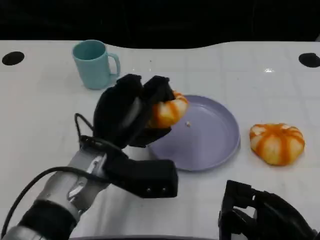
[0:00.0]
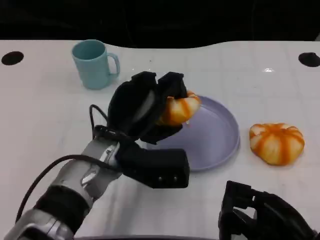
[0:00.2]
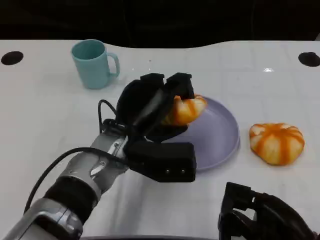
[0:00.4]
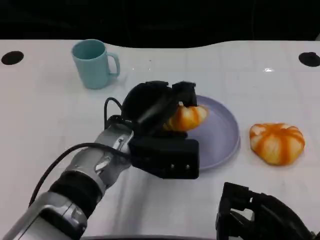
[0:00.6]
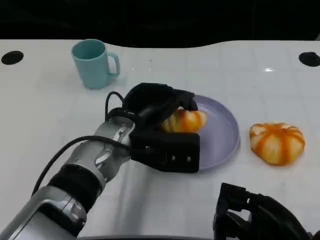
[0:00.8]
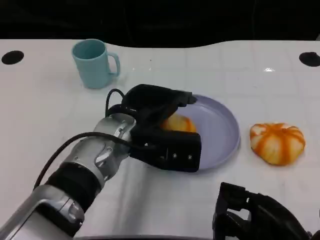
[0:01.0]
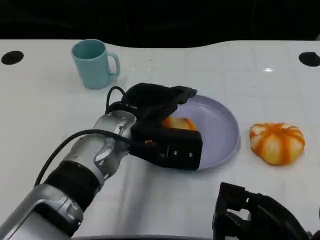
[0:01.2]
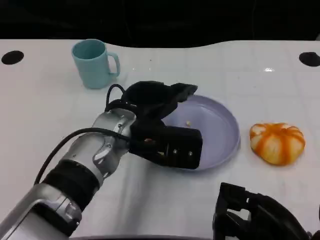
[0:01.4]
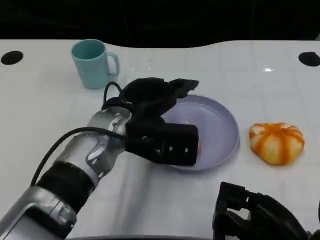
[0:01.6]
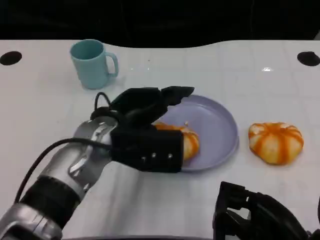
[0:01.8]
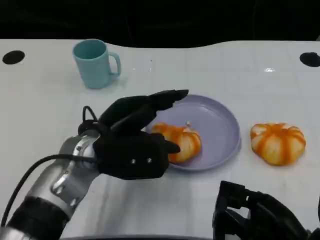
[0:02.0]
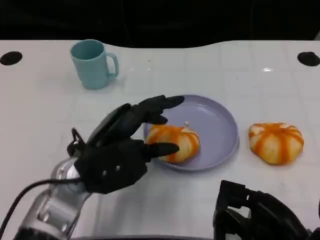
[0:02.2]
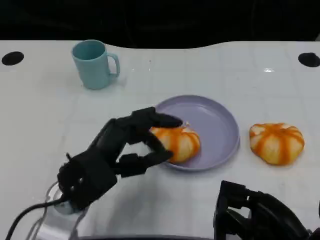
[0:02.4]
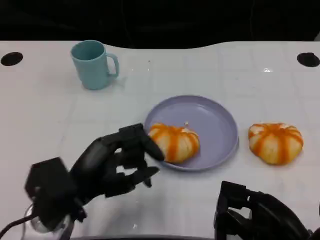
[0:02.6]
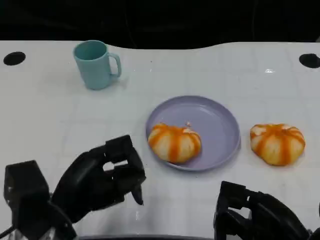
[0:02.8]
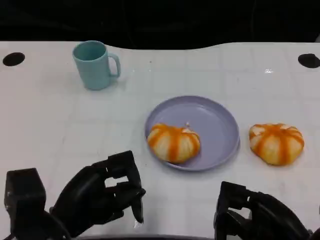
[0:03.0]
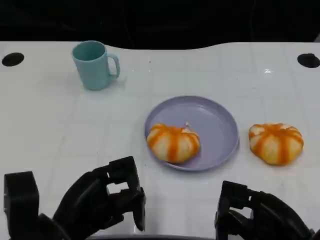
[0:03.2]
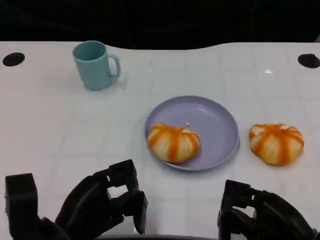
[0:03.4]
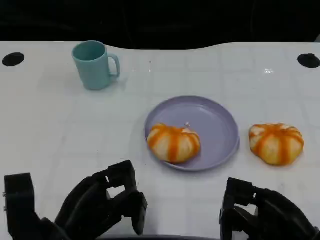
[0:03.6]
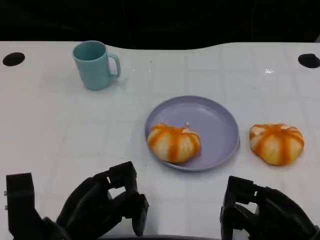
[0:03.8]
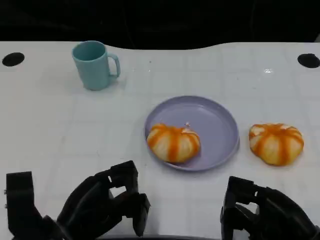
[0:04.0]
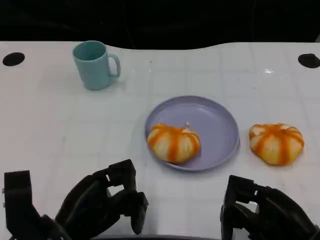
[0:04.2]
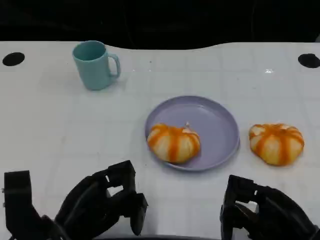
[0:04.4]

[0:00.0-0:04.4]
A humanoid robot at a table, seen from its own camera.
Task of the whole recording: Grasp the bread from the table and place it into the plate.
0:00.0 to 0:01.4: The left hand ends up some 5 cm from where it was.
0:01.4 to 0:03.0: The left hand heads backward, to the left and downward, covering some 20 cm.
0:03.0 to 0:04.4: There are only small adjustments of the hands.

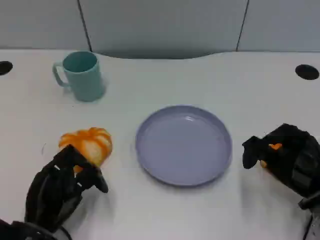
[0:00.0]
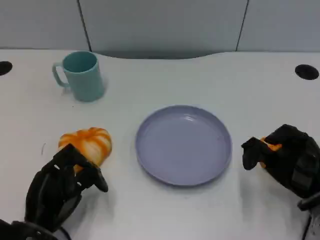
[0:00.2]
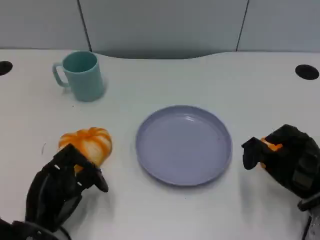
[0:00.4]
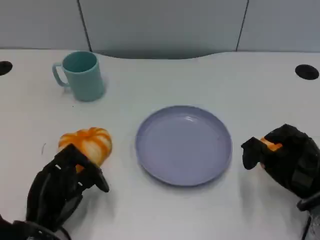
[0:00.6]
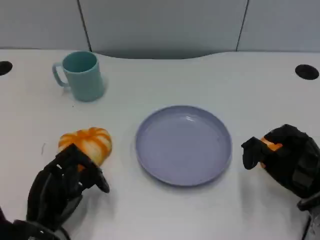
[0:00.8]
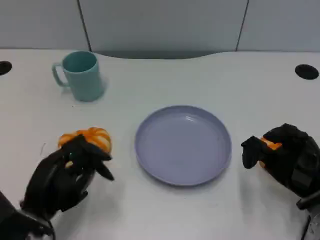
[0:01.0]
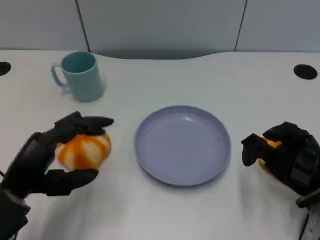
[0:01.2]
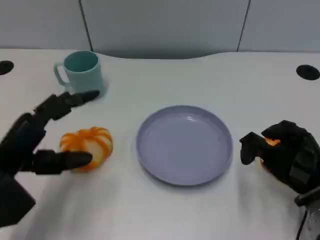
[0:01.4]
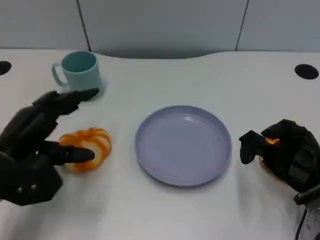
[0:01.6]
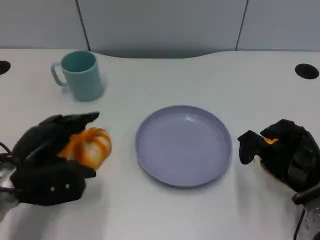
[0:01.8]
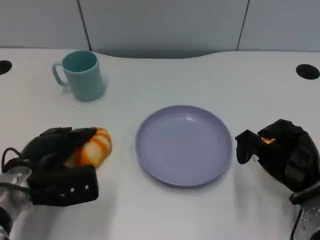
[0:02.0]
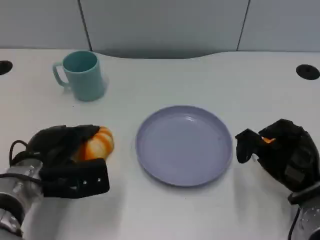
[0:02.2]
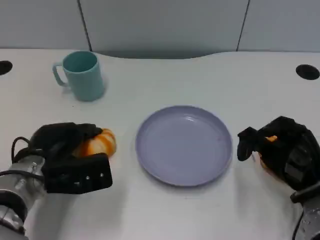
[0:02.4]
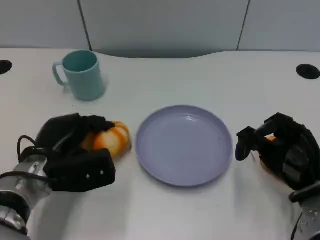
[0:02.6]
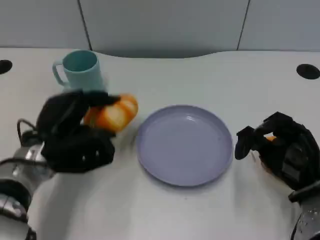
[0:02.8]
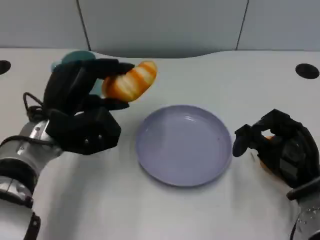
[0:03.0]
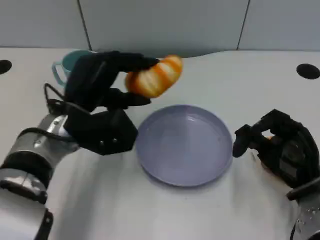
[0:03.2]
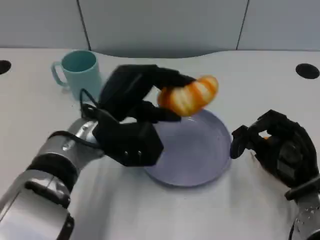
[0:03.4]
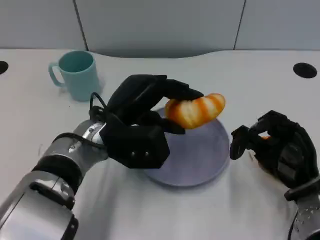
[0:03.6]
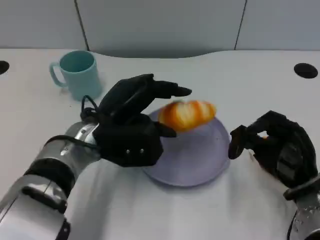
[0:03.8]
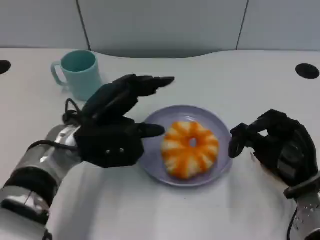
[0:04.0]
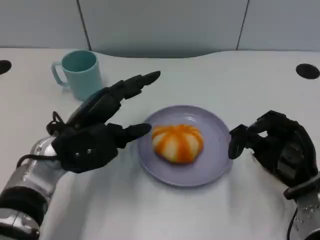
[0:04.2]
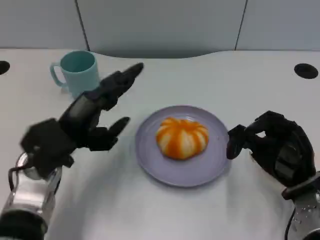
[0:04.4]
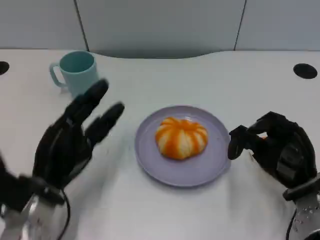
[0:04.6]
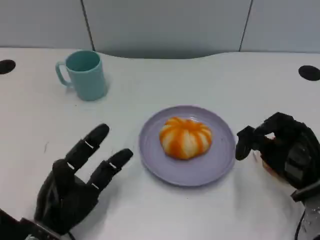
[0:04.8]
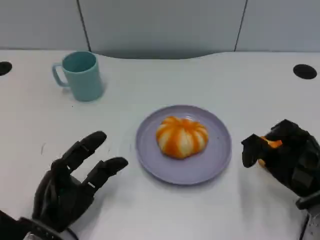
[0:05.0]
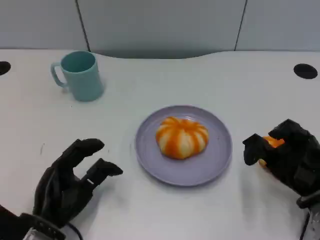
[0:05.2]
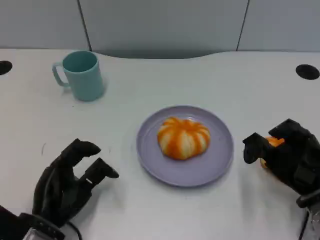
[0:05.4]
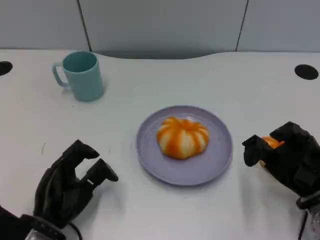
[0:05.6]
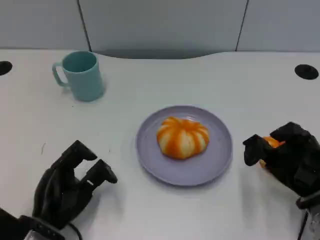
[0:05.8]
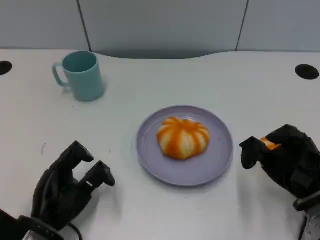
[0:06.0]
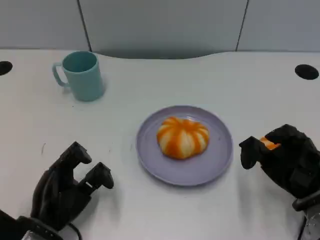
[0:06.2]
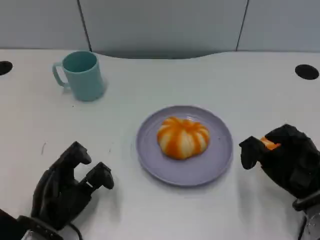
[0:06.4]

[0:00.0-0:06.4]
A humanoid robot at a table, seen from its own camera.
Task of the whole recording: Grasp the bread from the table and place it into the plate.
0:00.0 to 0:01.6: The left hand is displaced upward and forward by roughly 10 cm.
0:01.6 to 0:03.2: The left hand travels to the right and forward by roughly 10 cm.
0:03.2 to 0:04.8: The left hand is displaced backward, downward and to the left by about 20 cm.
0:04.8 to 0:06.4: The hands stay close to where they were, moving slightly.

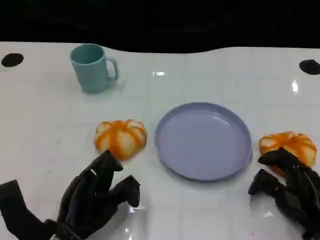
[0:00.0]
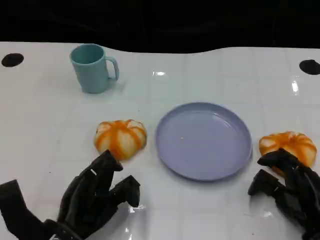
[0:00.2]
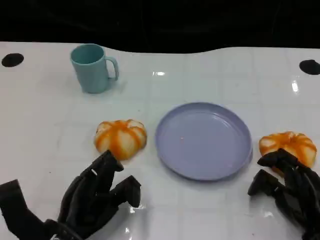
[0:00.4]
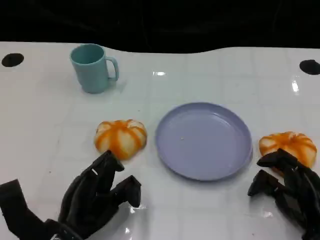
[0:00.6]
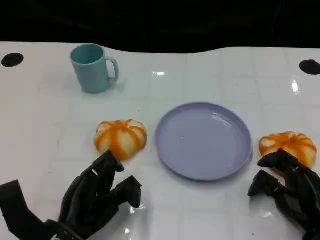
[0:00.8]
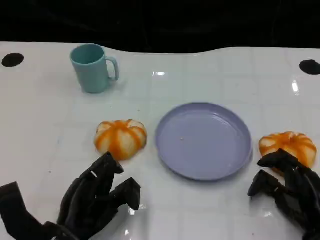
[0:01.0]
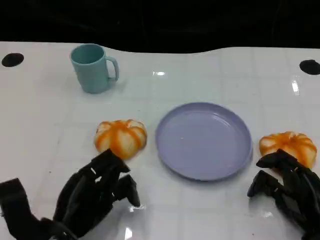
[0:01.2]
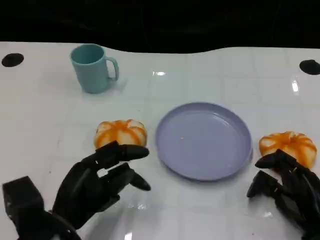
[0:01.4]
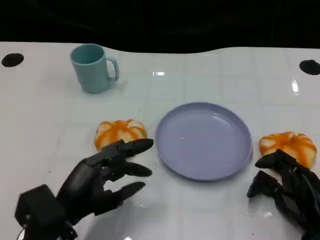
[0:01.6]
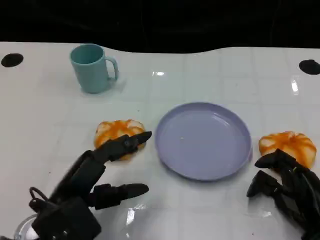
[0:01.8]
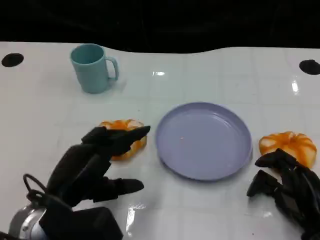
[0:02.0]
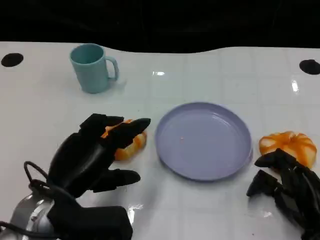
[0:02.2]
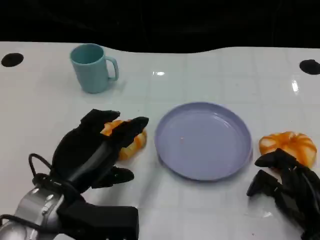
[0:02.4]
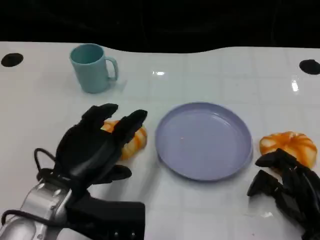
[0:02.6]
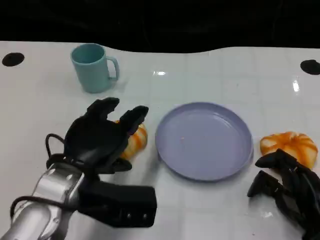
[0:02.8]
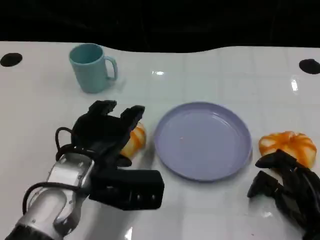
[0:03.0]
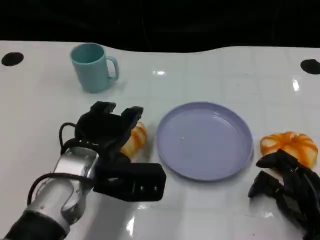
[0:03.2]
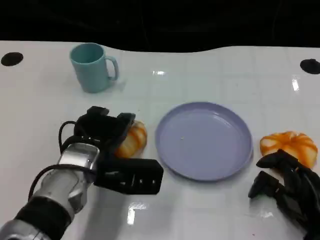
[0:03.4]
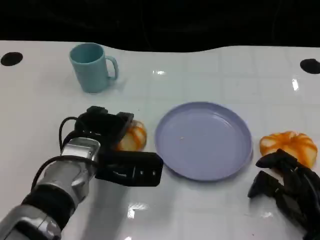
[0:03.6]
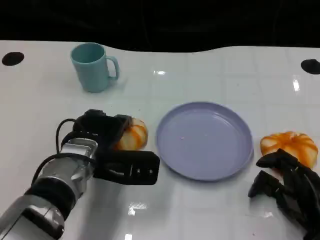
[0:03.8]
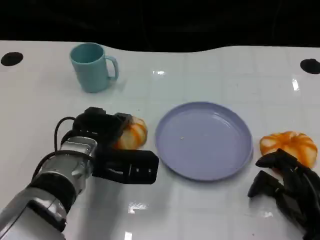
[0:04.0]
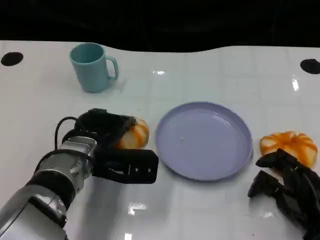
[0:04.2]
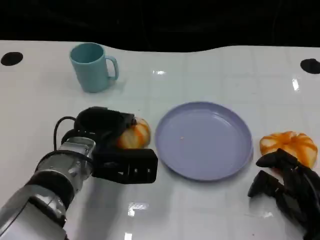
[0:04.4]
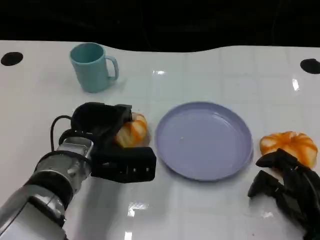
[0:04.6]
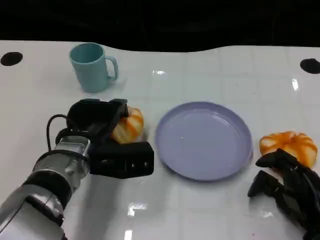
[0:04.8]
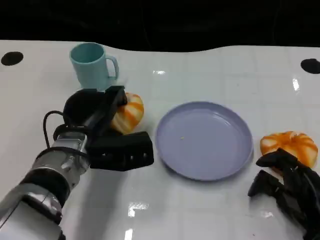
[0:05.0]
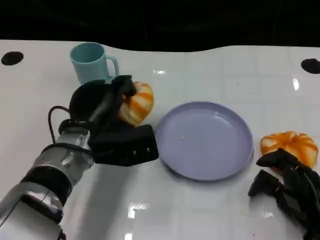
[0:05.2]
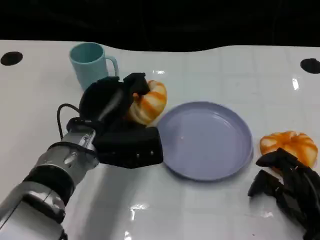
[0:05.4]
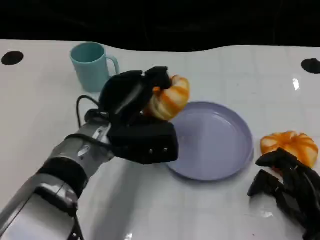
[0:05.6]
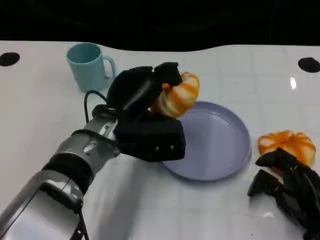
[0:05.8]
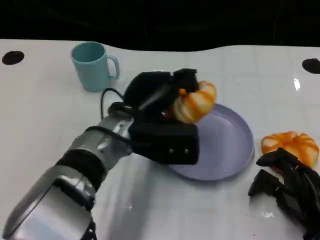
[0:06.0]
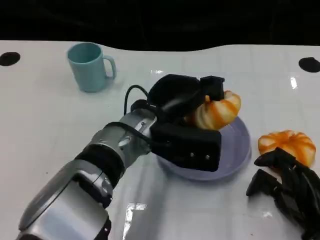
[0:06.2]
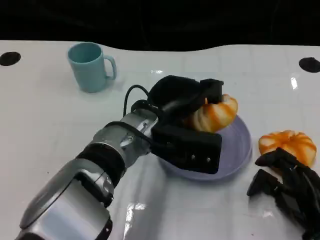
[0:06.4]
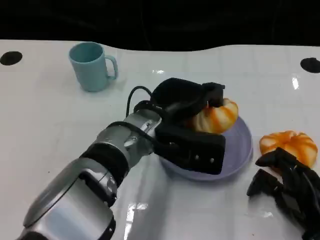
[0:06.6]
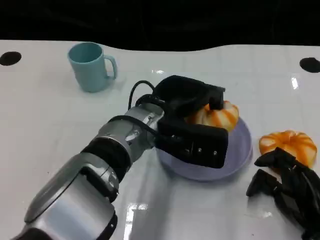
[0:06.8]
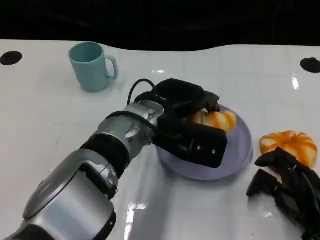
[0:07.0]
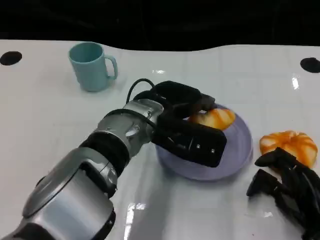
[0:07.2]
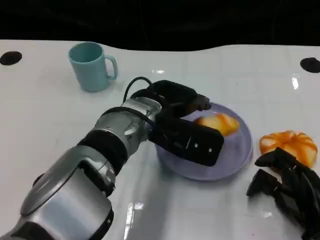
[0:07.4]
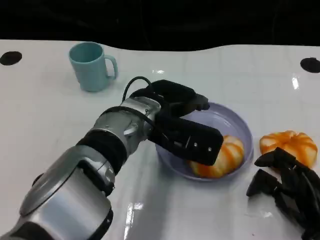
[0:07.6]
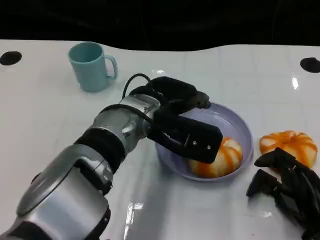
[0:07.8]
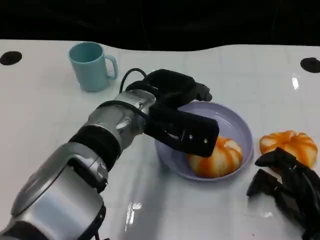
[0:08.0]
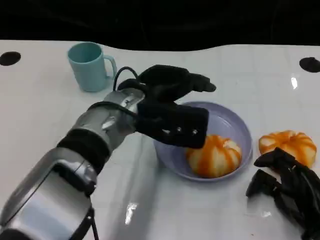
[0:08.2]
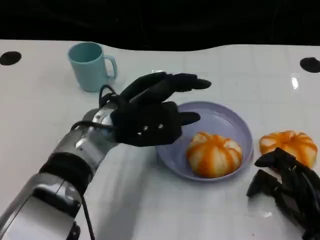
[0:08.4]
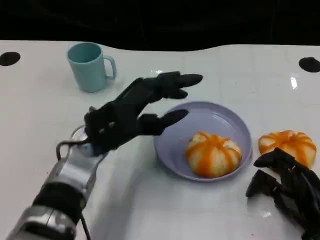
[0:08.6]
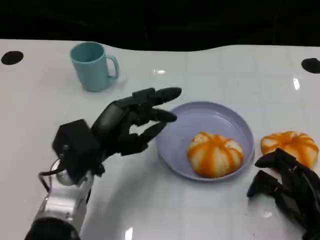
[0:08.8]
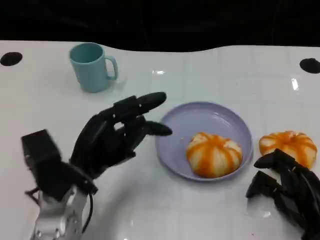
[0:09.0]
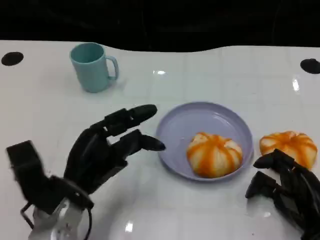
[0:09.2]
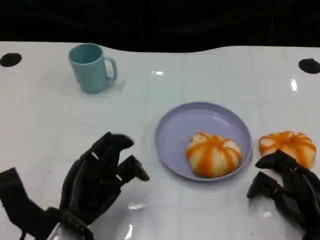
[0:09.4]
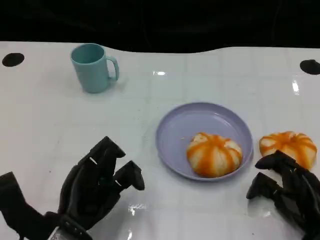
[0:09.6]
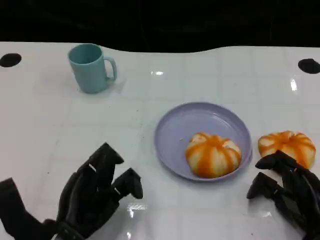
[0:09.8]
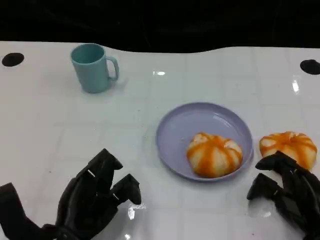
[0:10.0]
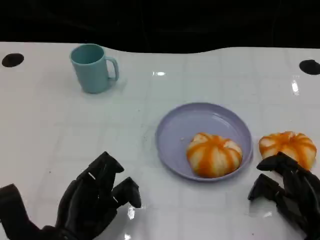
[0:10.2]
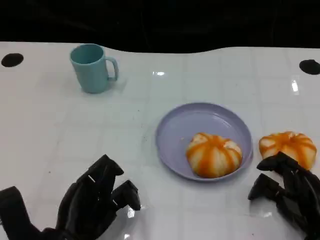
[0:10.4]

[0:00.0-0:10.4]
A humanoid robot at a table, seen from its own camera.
Task of the whole recording: Grasp the bread from the table and place it into the plate.
0:01.4 to 0:03.0: The left hand shifts about 10 cm forward and upward.
0:03.0 to 0:04.4: The left hand ends up about 5 cm from where it was.
0:04.4 to 0:06.0: The left hand moves to the right, about 5 cm.
0:07.4 to 0:09.0: The left hand travels to the left, downward and backward by about 15 cm.
0:09.0 to 0:10.4: The left hand goes about 5 cm backward.

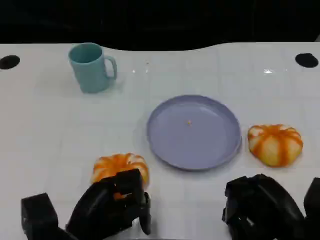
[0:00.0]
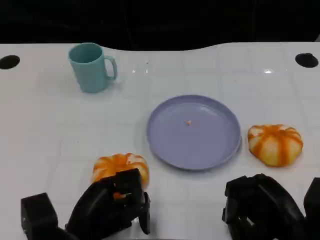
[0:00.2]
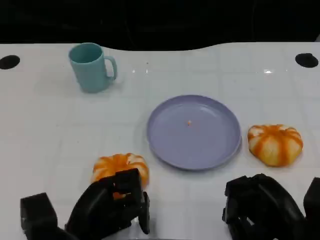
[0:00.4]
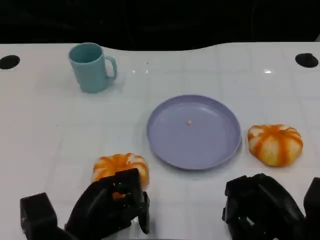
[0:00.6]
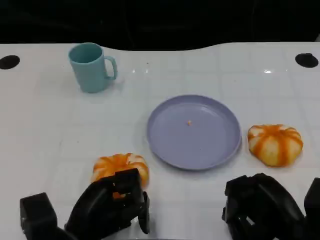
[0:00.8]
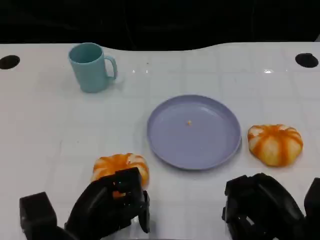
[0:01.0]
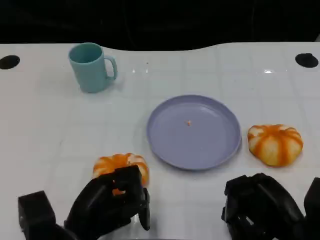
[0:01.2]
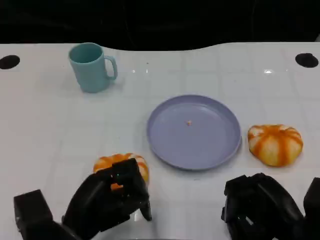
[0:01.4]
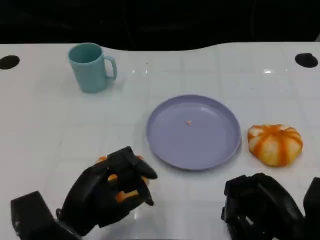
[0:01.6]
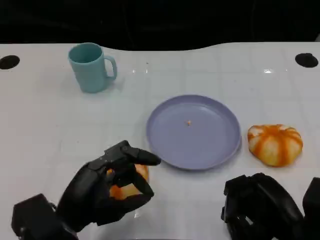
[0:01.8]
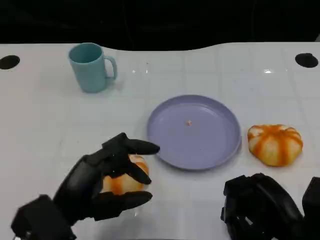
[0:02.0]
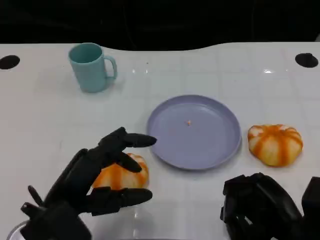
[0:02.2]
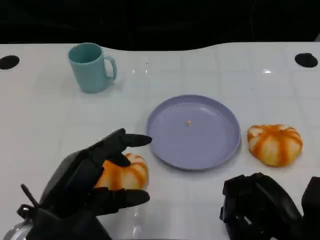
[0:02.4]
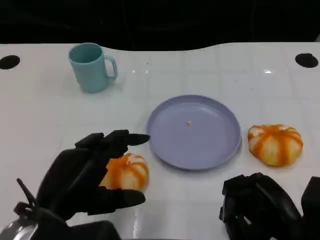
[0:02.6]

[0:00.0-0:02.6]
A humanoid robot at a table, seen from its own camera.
Task of the whole recording: Grasp the bread from the table and place it into the plate.
0:00.0 to 0:01.2: Neither hand changes place.
0:01.2 to 0:02.6: The left hand travels upward by some 10 cm.
